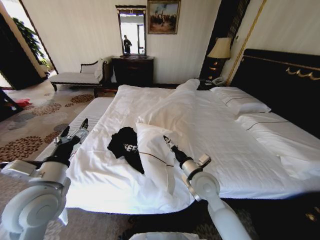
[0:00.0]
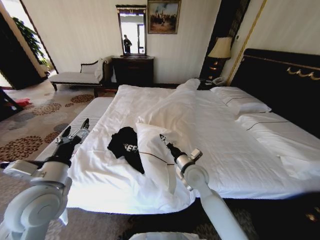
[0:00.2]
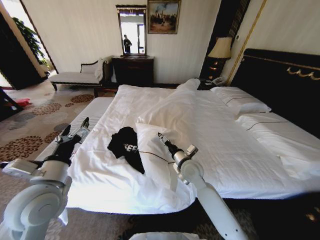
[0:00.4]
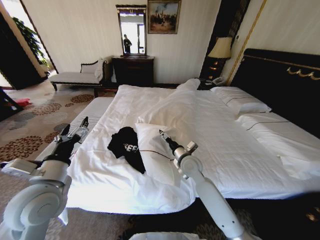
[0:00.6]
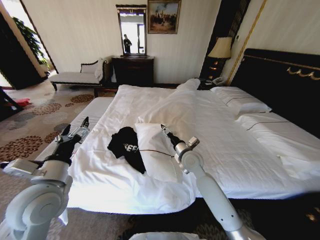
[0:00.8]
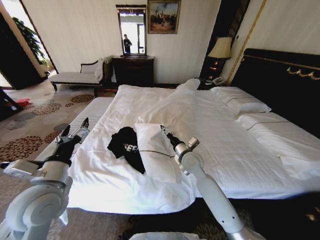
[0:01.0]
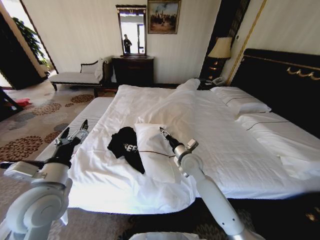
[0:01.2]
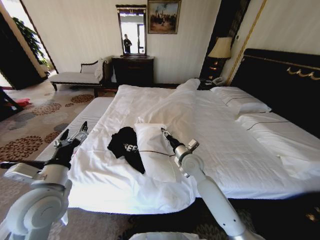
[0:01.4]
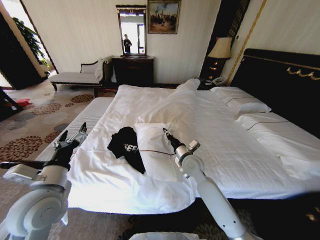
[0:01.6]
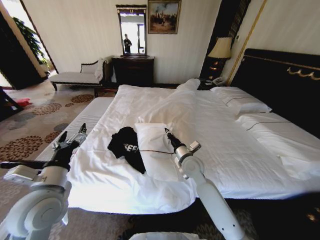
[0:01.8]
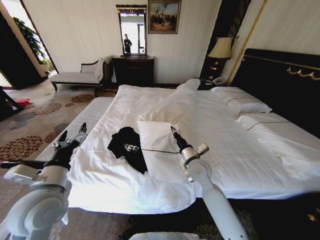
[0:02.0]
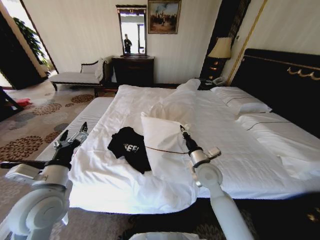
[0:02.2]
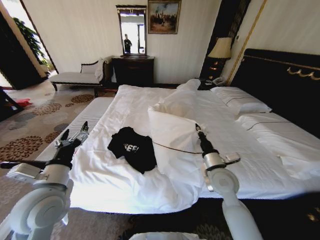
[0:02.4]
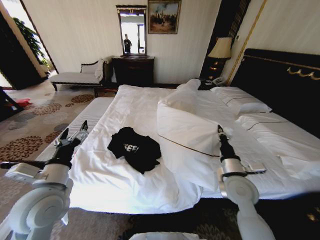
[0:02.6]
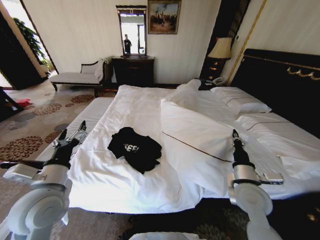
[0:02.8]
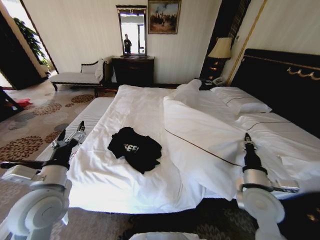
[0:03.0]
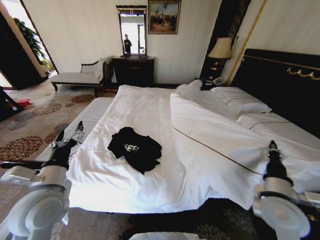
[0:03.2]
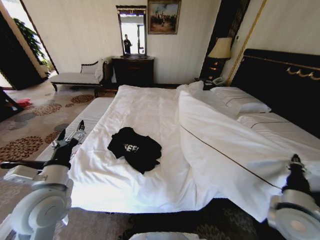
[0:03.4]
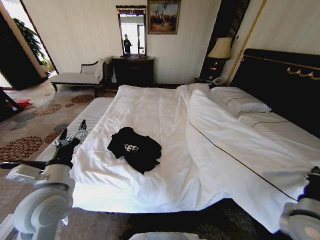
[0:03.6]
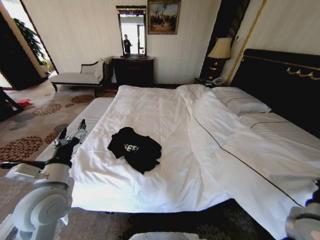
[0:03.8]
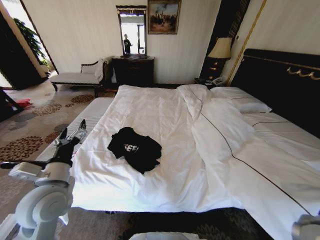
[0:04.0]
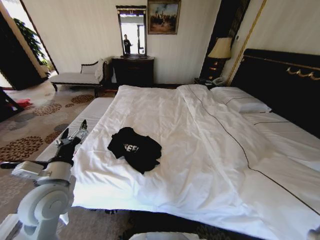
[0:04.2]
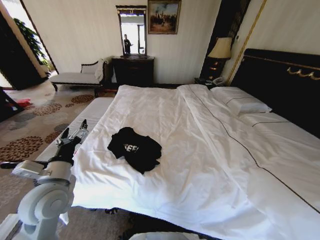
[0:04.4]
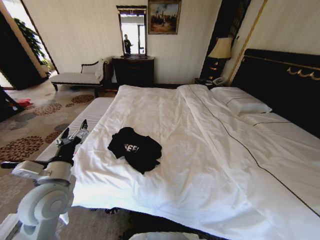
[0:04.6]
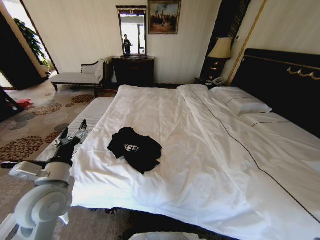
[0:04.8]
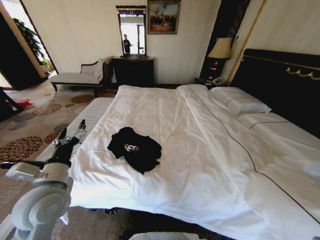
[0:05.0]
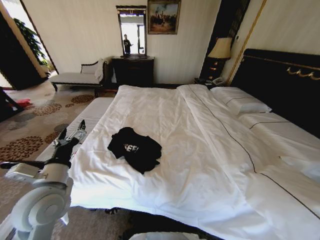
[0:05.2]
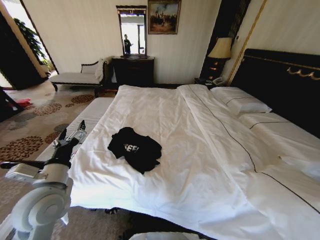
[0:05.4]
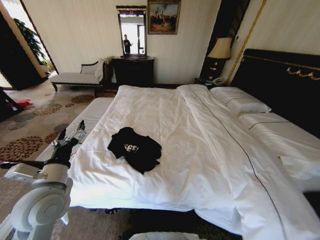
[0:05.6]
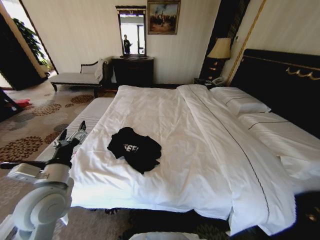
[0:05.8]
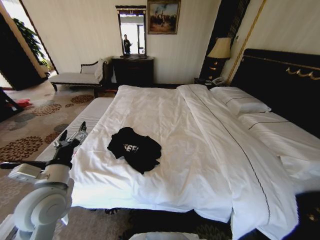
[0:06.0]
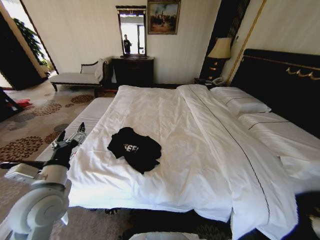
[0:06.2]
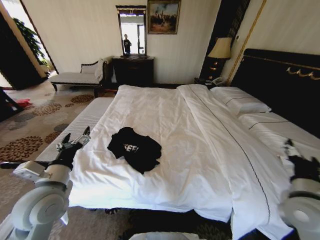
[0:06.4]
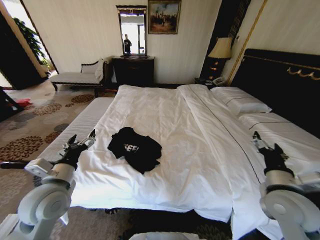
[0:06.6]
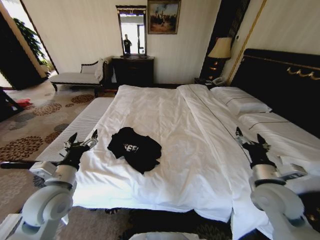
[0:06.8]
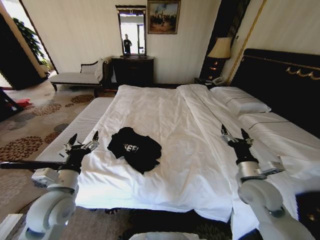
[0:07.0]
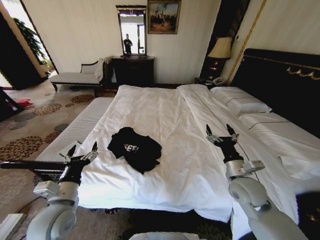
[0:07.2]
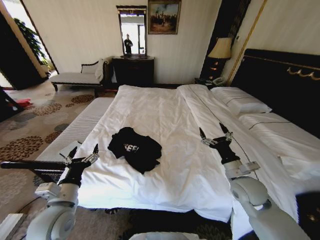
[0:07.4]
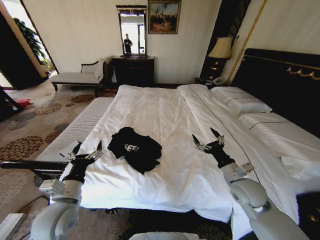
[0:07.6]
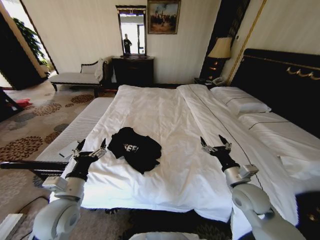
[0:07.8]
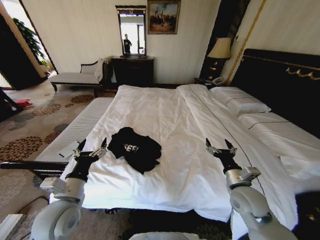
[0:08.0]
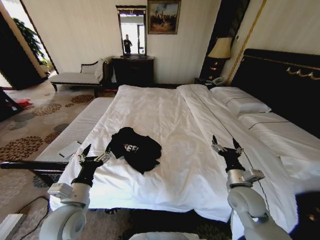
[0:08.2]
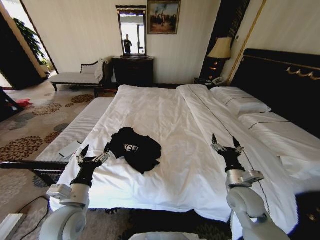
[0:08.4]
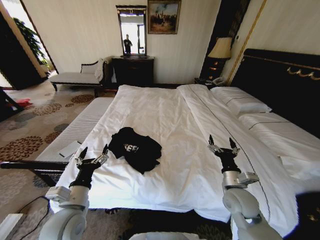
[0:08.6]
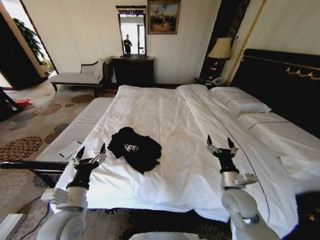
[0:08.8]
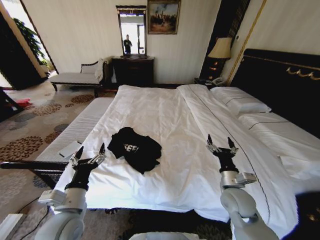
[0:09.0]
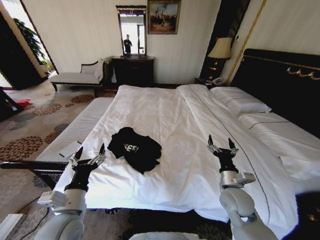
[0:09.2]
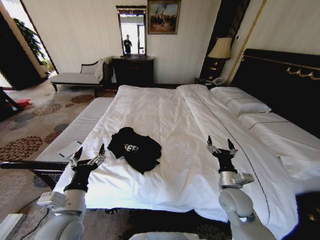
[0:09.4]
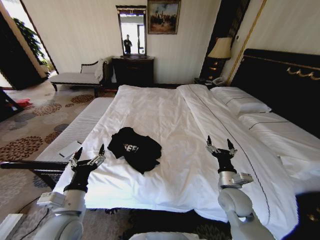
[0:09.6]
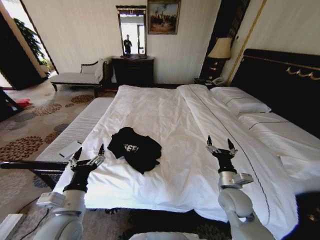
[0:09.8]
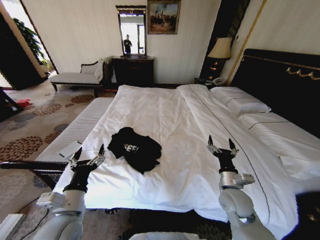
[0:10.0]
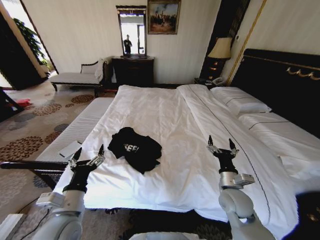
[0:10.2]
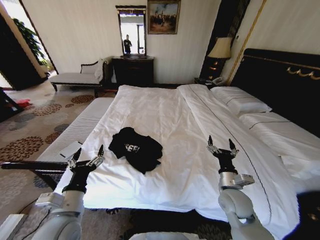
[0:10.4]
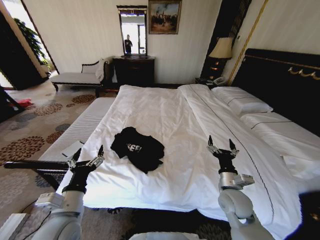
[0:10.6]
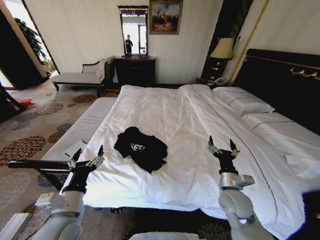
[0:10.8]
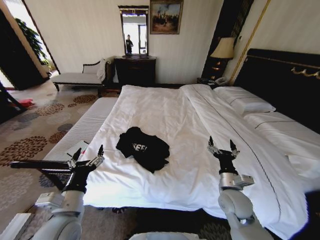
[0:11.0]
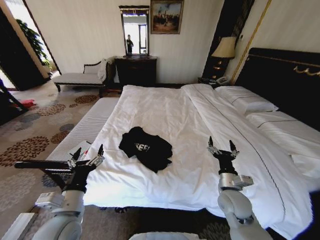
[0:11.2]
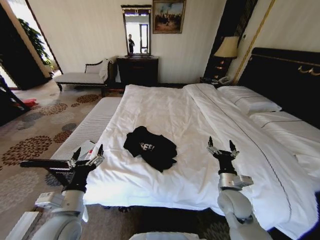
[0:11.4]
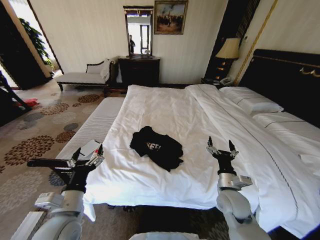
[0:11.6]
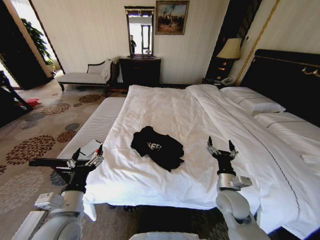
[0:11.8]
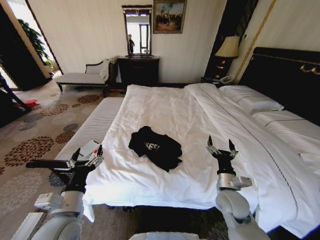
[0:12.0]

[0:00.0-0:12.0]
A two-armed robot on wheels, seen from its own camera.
Task of the whole recording: Fold the clothes on the bed.
0:00.0 to 0:01.6: The right gripper moves forward, some 10 cm, and closes its fingers.
0:01.6 to 0:03.0: The right gripper is displaced to the right and backward by some 25 cm.
0:03.0 to 0:04.4: The right gripper shifts about 20 cm to the right and backward.
0:04.4 to 0:06.0: The right gripper shifts roughly 5 cm upward, and opens its fingers.
0:06.0 to 0:07.6: The left gripper is displaced downward by roughly 5 cm, while the right gripper moves forward, to the left and downward, some 25 cm.
0:09.0 to 0:10.4: The two grippers keep their place.

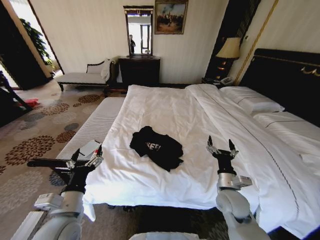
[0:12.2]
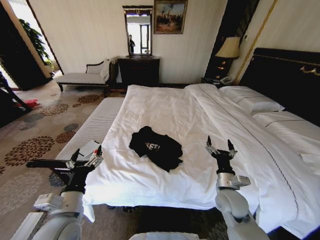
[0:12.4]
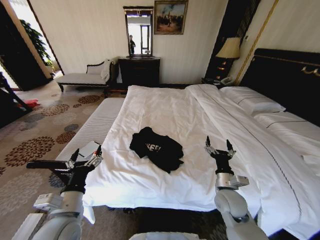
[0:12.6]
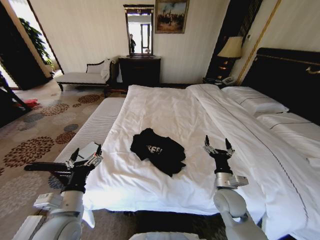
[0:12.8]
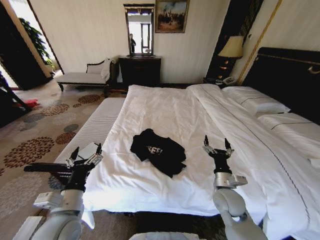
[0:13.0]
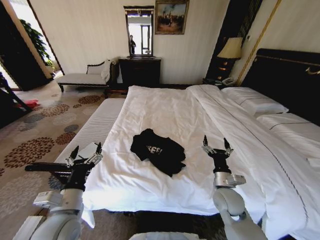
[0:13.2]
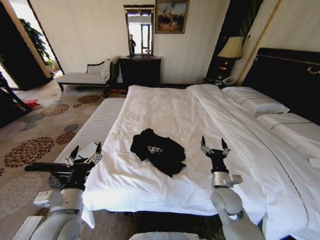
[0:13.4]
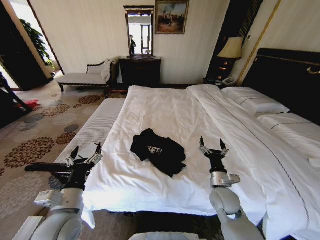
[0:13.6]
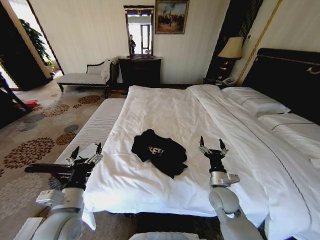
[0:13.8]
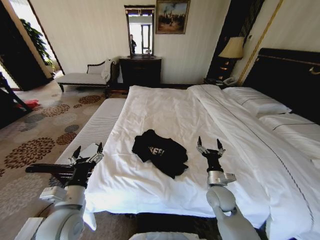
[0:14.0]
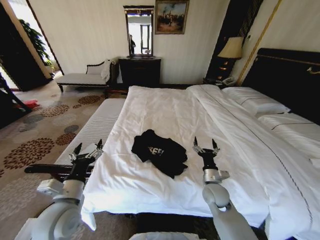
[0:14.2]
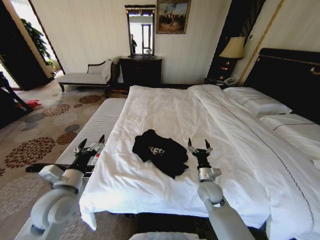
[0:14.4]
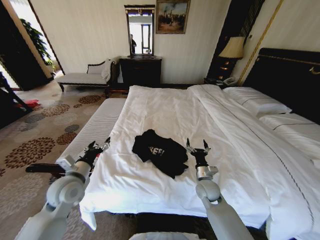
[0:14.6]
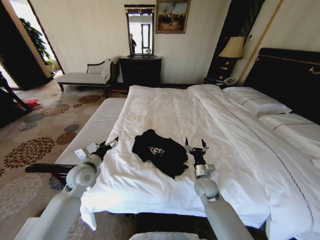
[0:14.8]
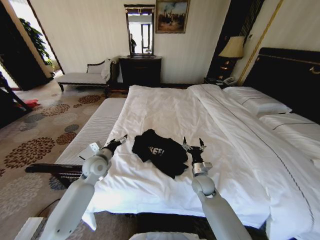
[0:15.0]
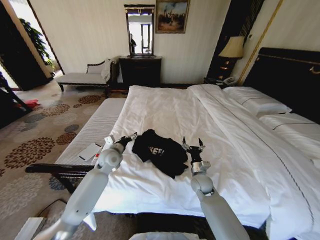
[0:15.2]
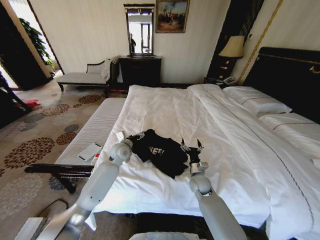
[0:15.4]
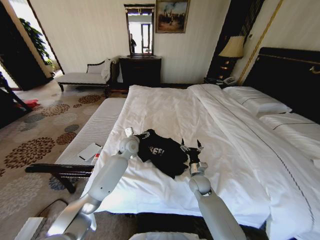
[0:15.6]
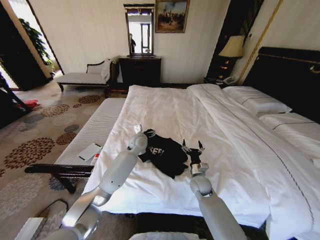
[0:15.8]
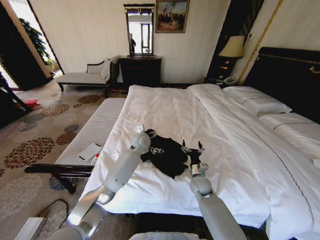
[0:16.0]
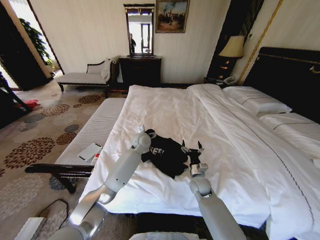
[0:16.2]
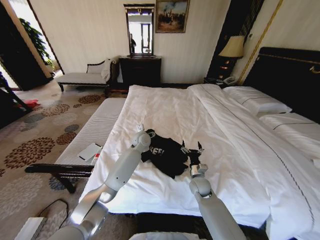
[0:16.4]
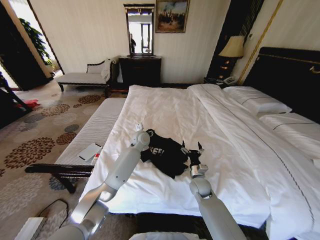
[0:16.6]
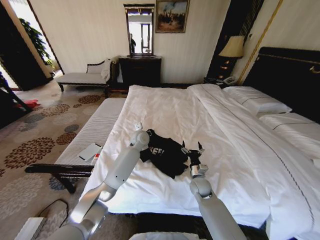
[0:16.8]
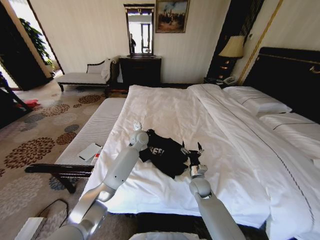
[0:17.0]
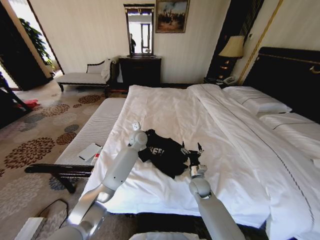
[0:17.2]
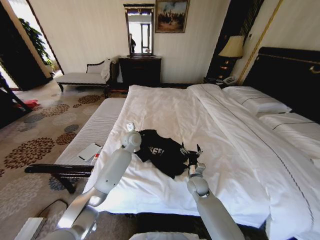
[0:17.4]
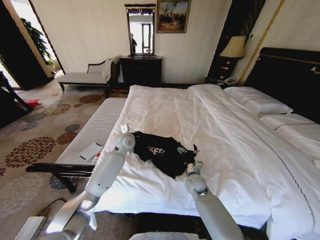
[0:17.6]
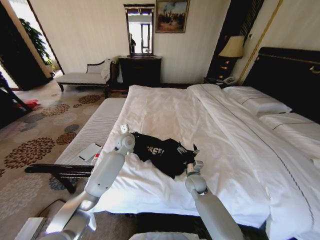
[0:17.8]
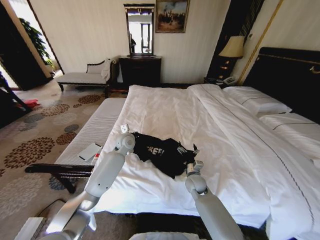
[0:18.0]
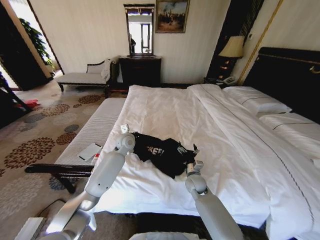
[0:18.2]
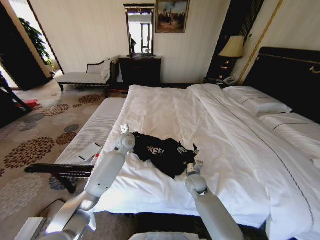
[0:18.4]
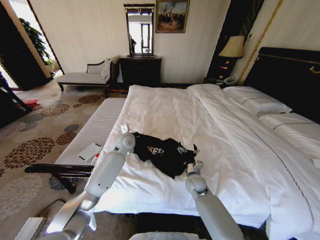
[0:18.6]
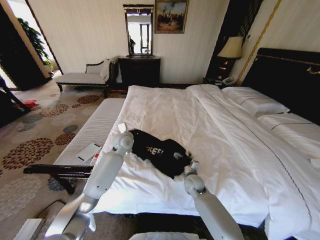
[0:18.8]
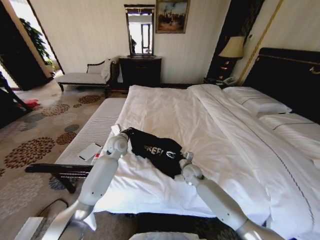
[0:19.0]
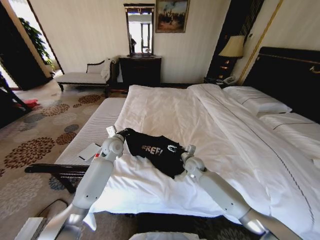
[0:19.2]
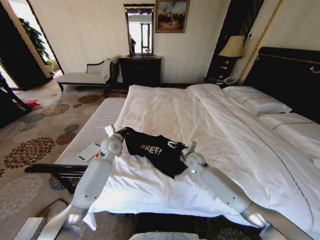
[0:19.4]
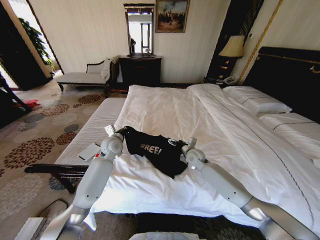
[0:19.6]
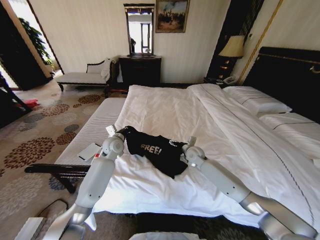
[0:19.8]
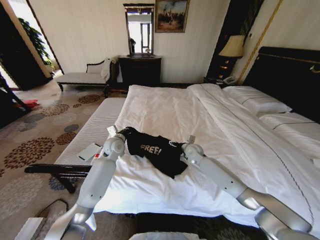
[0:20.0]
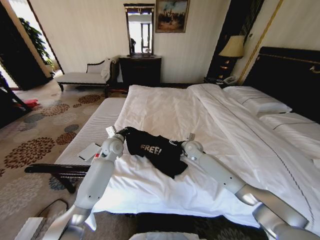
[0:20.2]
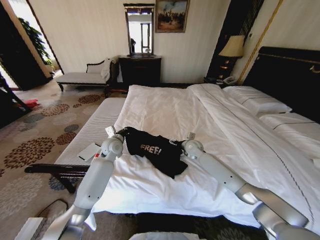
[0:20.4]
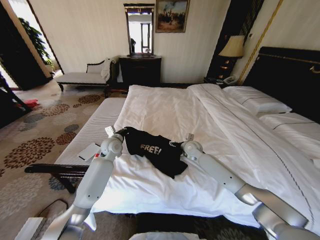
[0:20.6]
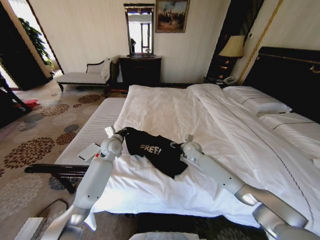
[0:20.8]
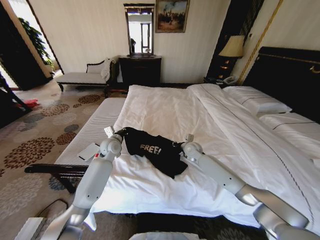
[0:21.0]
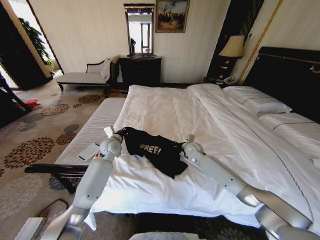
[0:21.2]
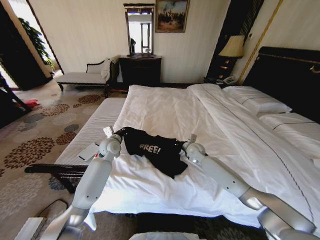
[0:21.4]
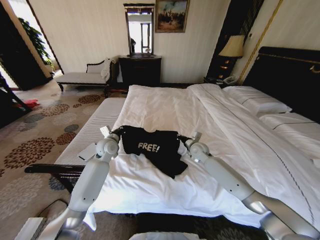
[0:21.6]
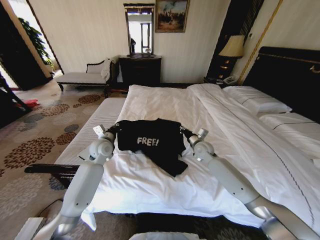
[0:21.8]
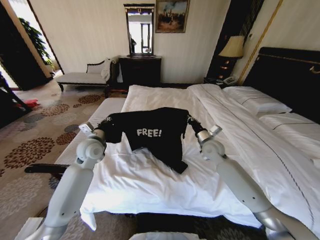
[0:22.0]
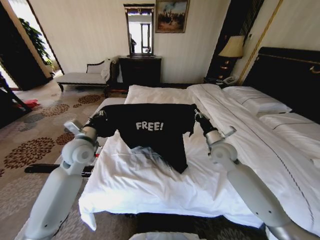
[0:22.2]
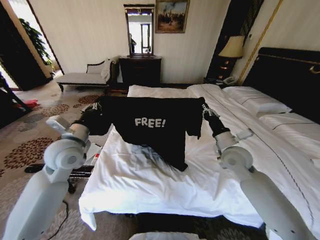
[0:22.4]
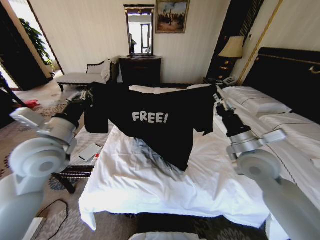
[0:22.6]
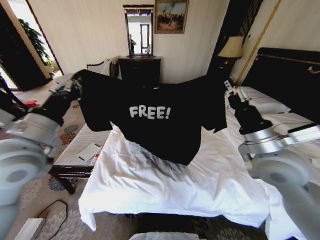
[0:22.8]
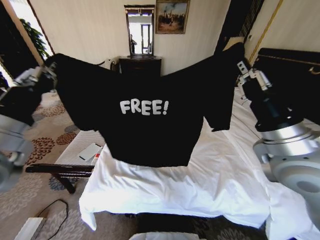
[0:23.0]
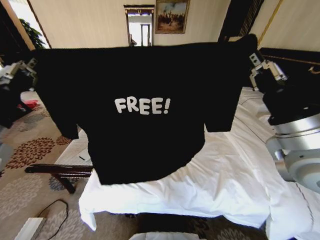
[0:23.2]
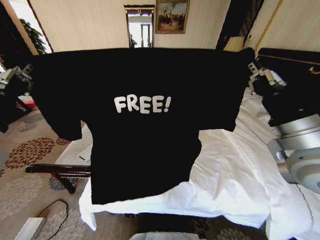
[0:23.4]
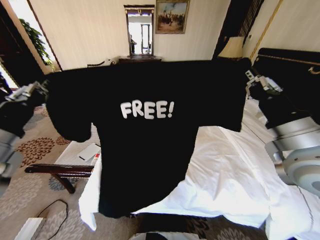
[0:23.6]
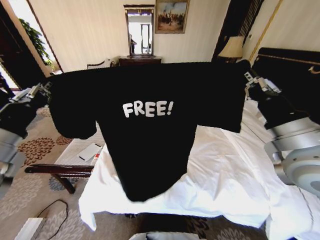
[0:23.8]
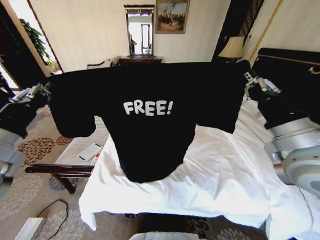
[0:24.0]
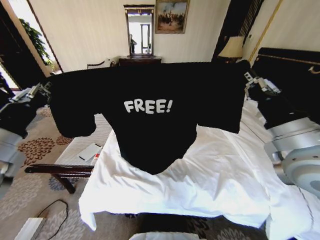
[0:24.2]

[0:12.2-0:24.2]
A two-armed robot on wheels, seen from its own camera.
Task of the whole recording: Fold the clothes on the bed.
0:12.2 to 0:13.8: The grippers stay close to where they were, moving slightly.
0:13.8 to 0:15.2: The right gripper moves forward and downward, about 10 cm. Meanwhile the left gripper shifts roughly 25 cm forward.
0:15.2 to 0:16.6: The left gripper is displaced to the right and forward by some 20 cm.
0:16.6 to 0:18.2: The left gripper moves to the left, some 10 cm, and closes its fingers.
0:18.2 to 0:19.8: The right gripper is displaced forward and upward by roughly 15 cm. The left gripper travels to the left by approximately 5 cm.
0:19.8 to 0:21.2: The right gripper closes up.
0:21.2 to 0:22.6: The right gripper is displaced backward, upward and to the right by approximately 30 cm, while the left gripper shifts some 25 cm backward, upward and to the left.
0:22.6 to 0:24.2: The left gripper travels backward by approximately 10 cm. The right gripper goes some 10 cm upward and backward.
